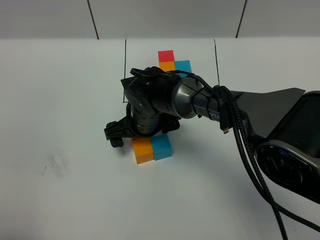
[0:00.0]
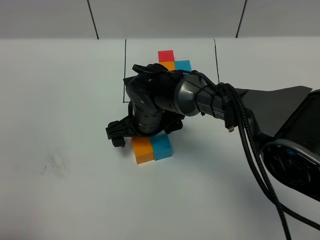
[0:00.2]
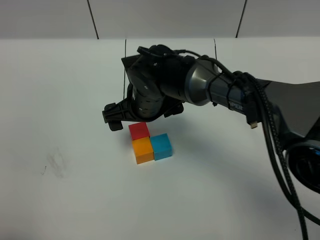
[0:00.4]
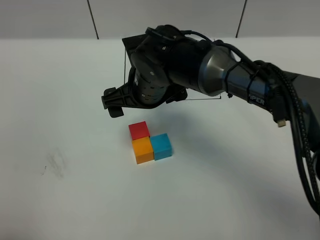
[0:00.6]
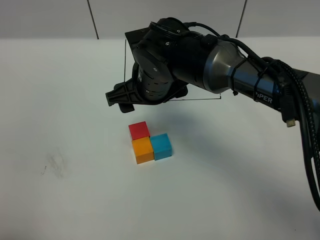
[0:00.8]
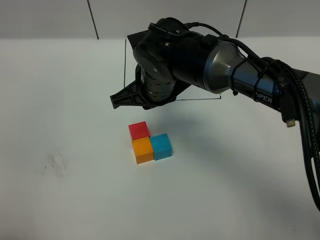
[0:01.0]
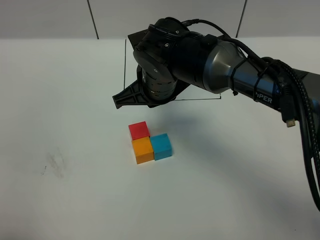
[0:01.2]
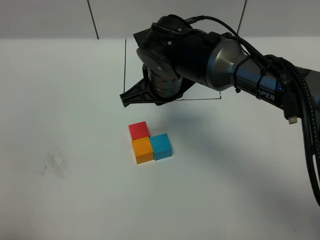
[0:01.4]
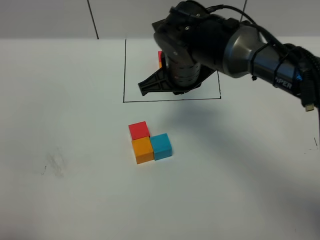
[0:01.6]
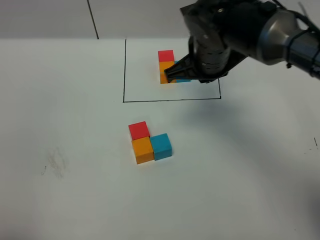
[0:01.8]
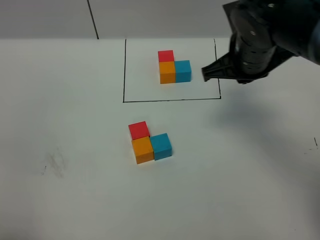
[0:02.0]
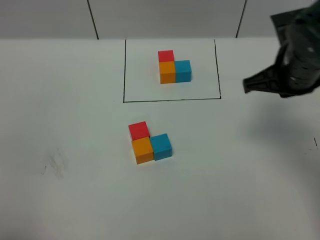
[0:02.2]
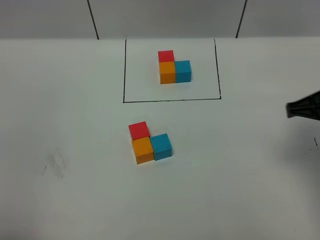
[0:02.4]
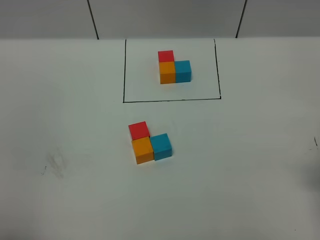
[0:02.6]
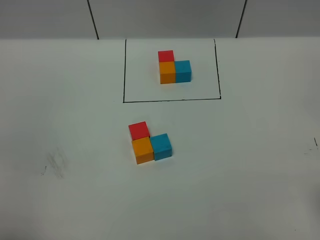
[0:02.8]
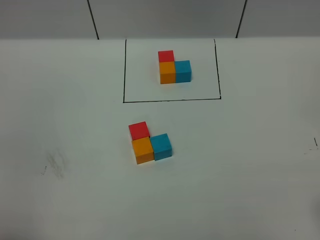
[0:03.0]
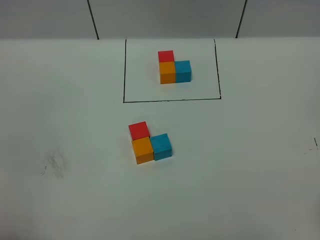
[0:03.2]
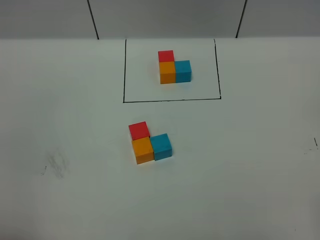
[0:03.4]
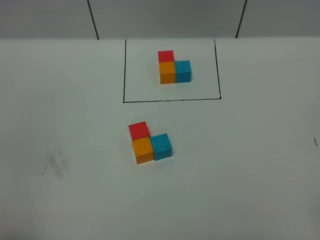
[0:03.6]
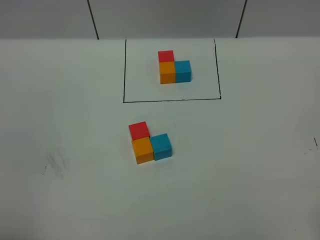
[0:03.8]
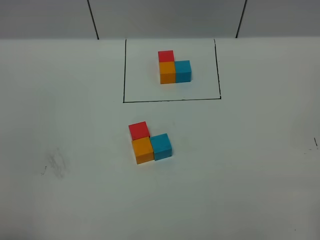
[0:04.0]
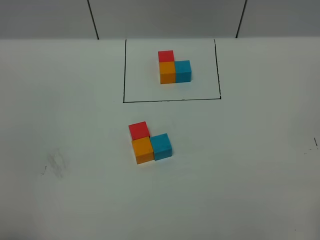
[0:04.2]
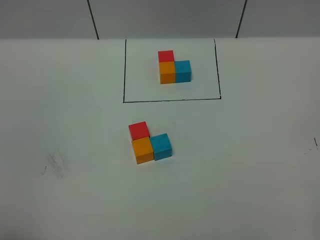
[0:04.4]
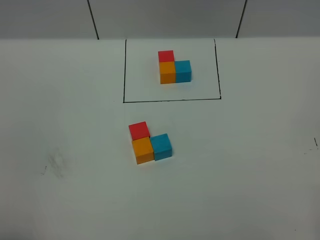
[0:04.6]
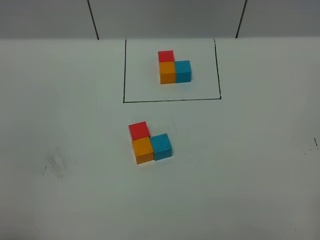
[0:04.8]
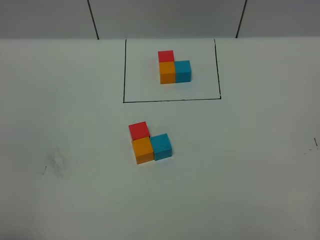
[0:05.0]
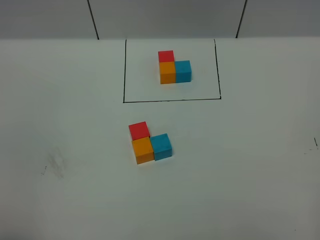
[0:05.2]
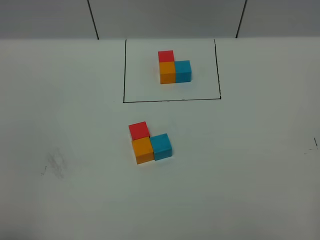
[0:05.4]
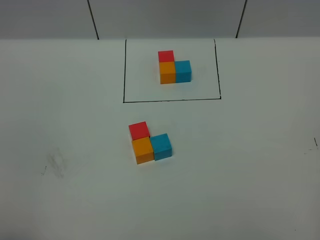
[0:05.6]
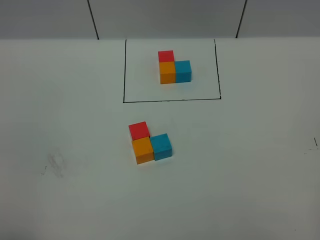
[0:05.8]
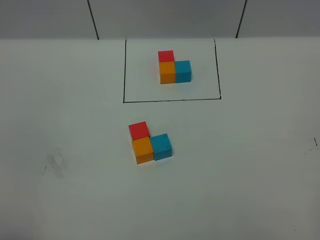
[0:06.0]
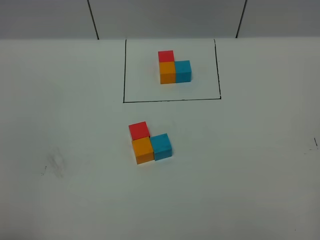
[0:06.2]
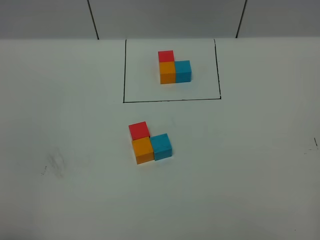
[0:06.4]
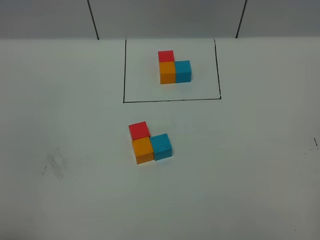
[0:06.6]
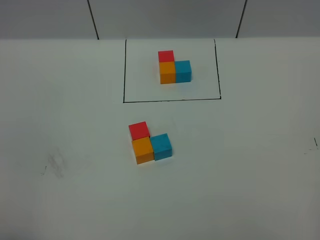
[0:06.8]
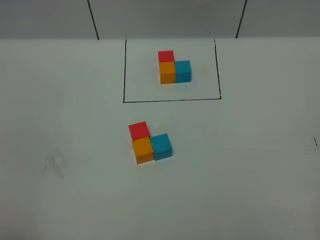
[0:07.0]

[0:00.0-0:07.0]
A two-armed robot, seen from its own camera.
Task of the whole recording: According to the building block template in front, assemble the scattered blocks together.
0:00.0 to 0:01.4: The right gripper travels upward by approximately 10 cm, and closes up.
0:01.4 to 0:02.8: The right gripper shifts some 35 cm to the right and backward.
0:05.6 to 0:07.0: Both grippers stay about where they are.

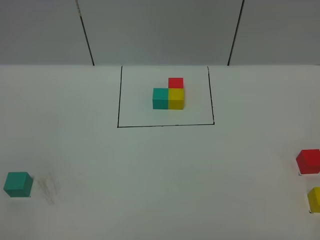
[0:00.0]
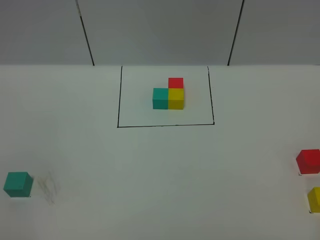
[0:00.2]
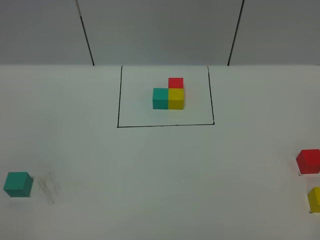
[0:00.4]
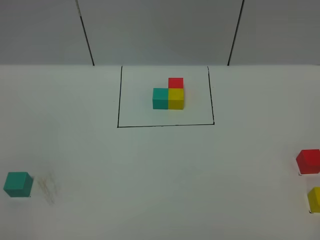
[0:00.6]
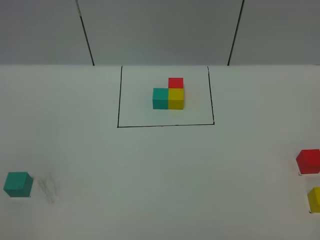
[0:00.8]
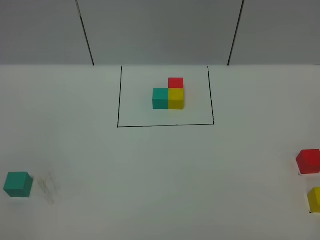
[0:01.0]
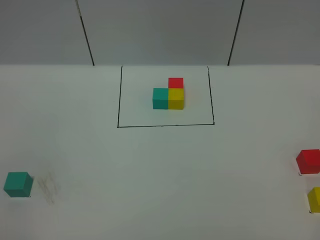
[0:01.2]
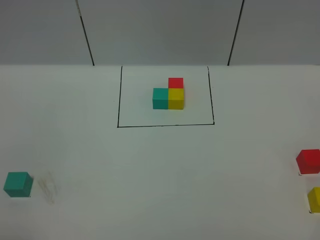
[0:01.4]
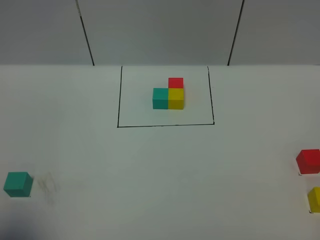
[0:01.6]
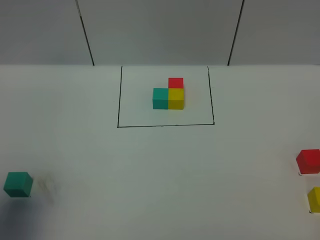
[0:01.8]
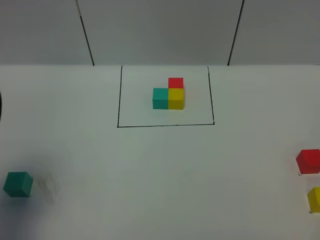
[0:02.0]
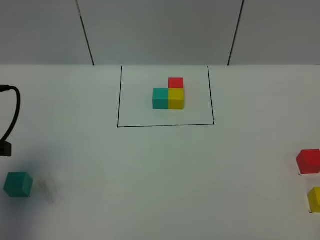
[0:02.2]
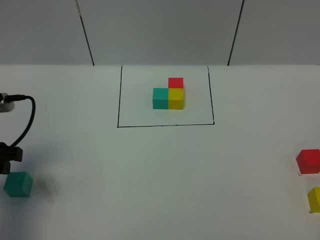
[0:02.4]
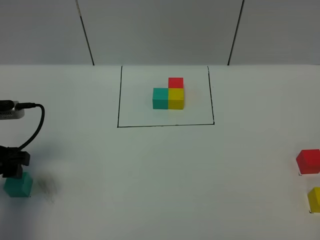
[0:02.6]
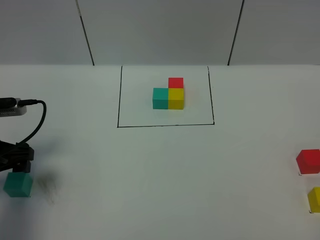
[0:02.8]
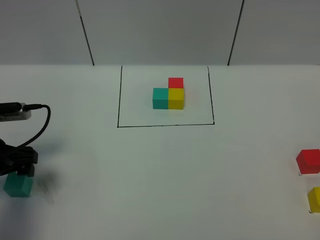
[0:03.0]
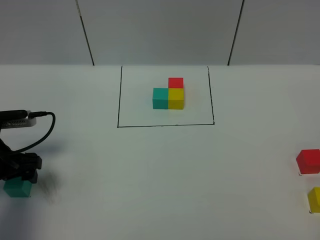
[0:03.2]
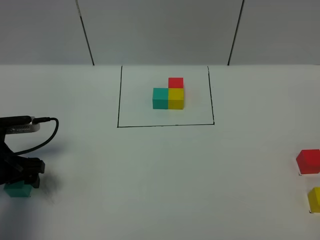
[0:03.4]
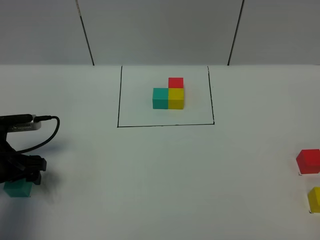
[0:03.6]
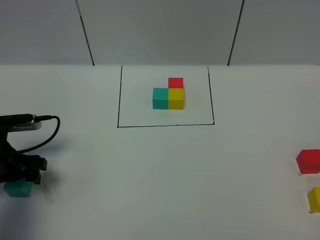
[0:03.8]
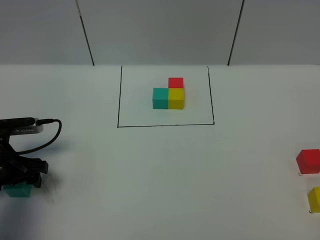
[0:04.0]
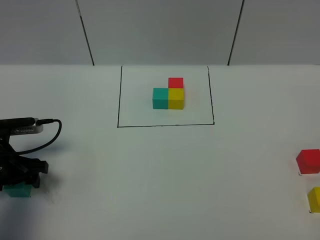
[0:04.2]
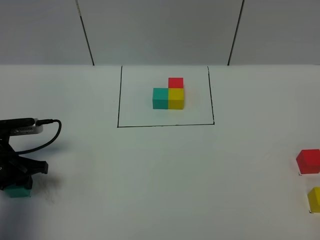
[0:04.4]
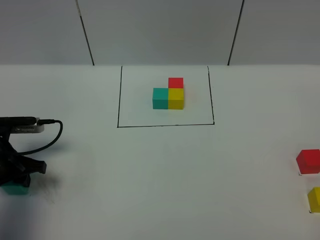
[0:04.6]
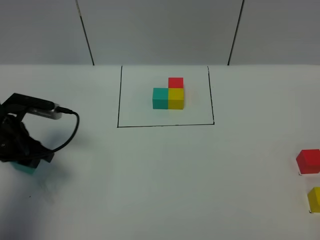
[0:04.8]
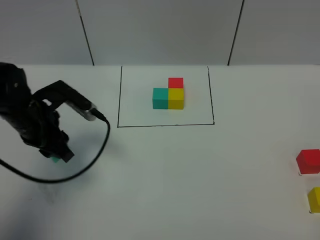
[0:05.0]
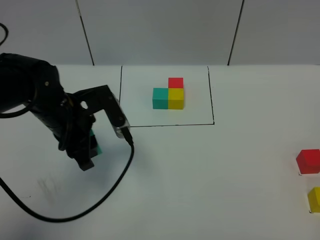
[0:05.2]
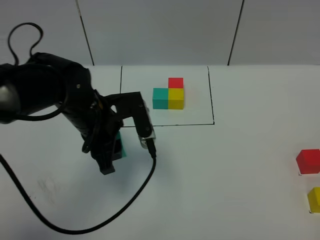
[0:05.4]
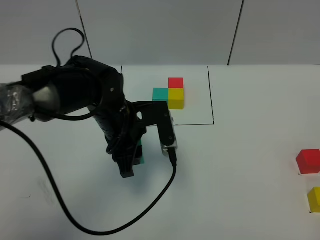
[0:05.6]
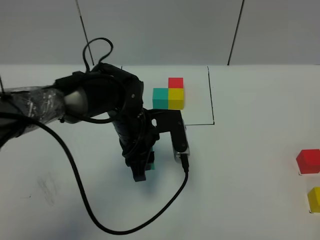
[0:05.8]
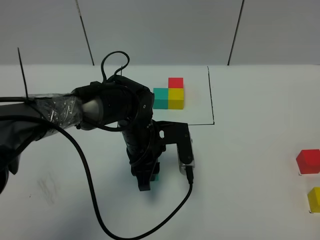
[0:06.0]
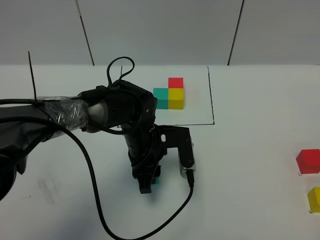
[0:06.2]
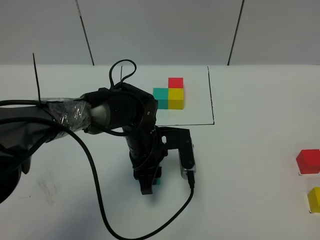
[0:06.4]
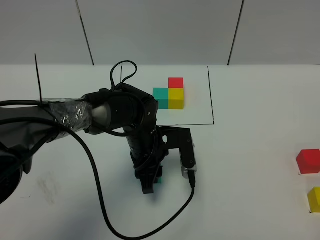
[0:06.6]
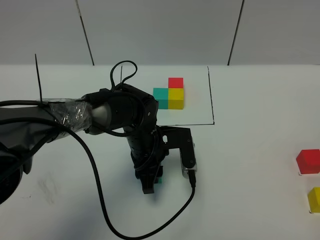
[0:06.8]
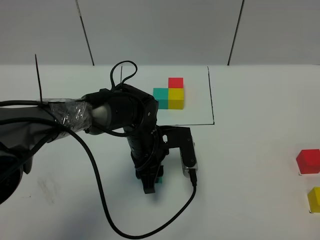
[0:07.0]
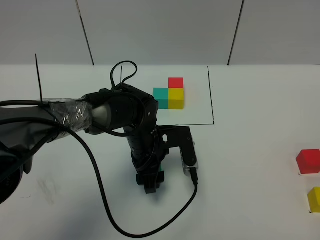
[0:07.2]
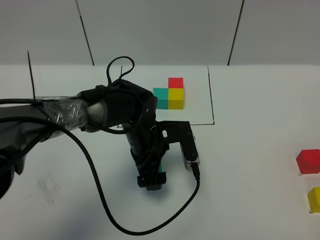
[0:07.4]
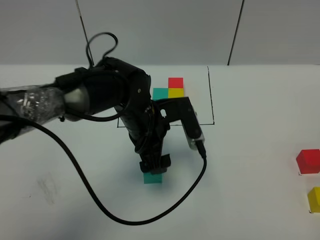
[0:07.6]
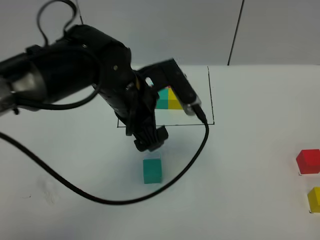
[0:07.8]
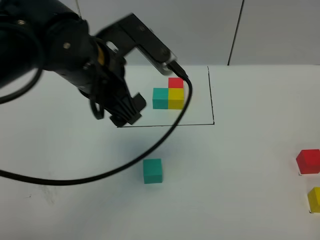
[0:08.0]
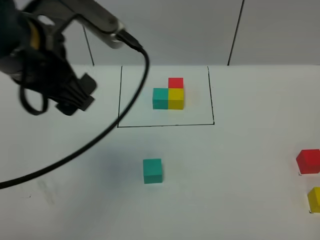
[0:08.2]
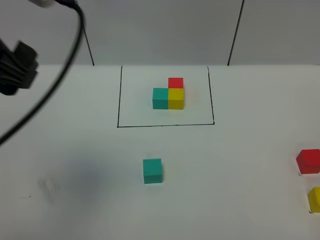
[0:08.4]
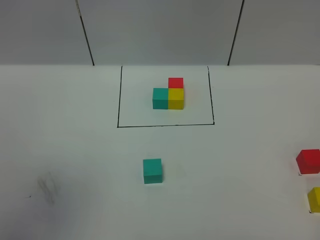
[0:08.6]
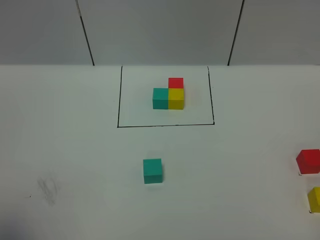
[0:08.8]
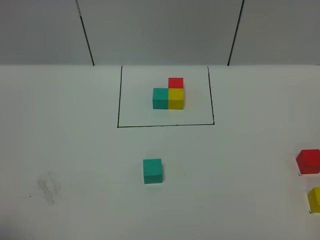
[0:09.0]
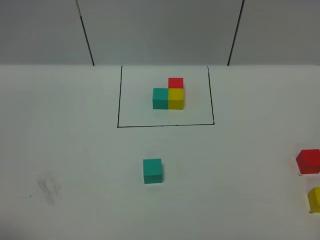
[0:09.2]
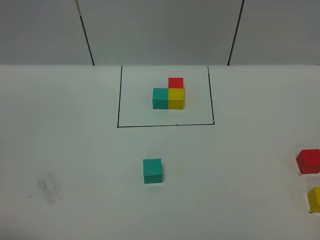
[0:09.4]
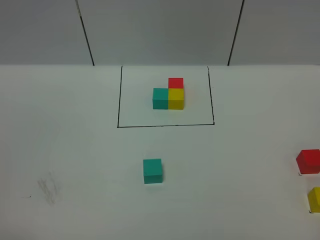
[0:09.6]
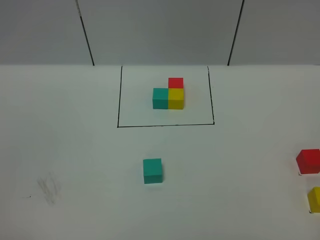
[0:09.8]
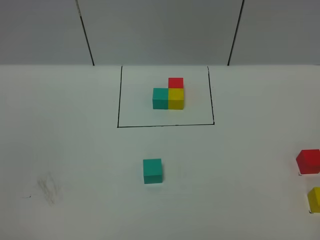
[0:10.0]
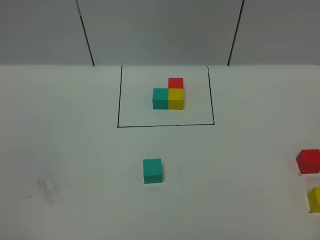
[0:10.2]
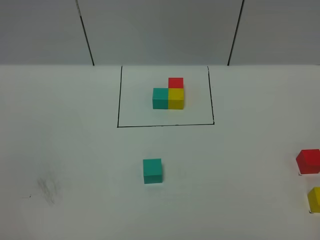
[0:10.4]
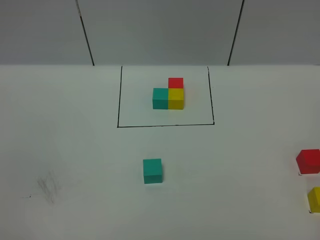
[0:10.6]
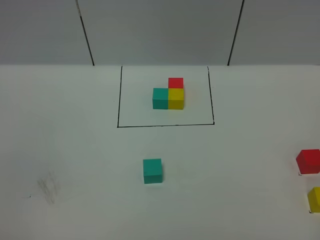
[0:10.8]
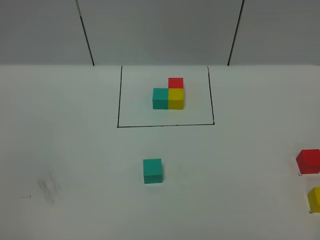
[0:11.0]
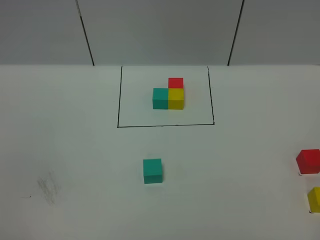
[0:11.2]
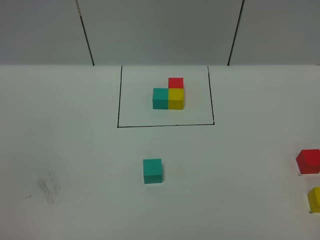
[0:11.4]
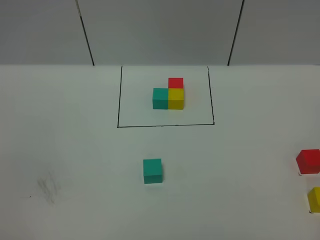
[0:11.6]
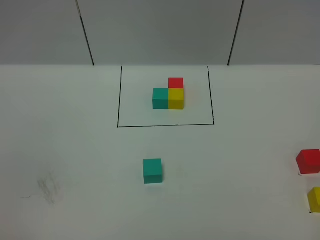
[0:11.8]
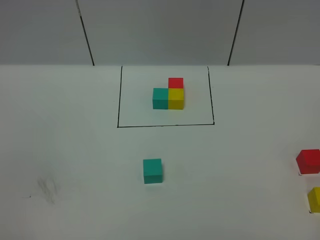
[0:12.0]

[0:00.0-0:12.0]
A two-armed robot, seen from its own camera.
Task of the whole recording: According to the building block template in front, assemble the scattered blocks together.
Step, 0:02.0 to 0:07.2: Put the green cube in the center of the table.
0:00.0 to 0:01.6: The left gripper moves forward and upward, about 10 cm.
0:01.6 to 0:03.0: The left gripper goes roughly 25 cm forward and downward, and opens its fingers.
0:03.0 to 0:04.4: The left gripper closes up.
0:04.4 to 0:06.0: The left gripper is displaced to the right by some 25 cm.
0:06.0 to 0:07.6: The left gripper shifts about 5 cm upward, and opens.
0:07.6 to 0:09.0: The left gripper travels backward, to the left and upward by some 50 cm.
0:10.4 to 0:12.0: The two grippers keep their place.

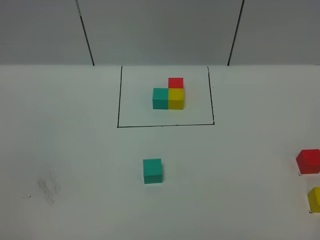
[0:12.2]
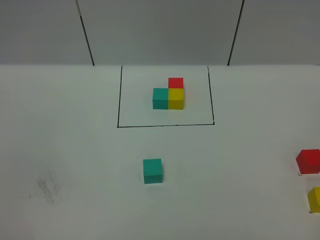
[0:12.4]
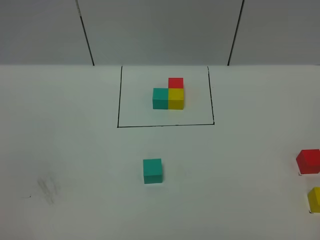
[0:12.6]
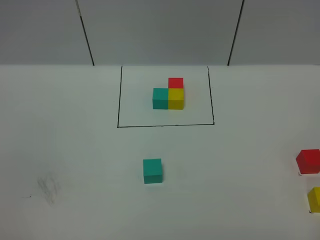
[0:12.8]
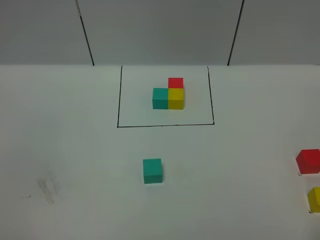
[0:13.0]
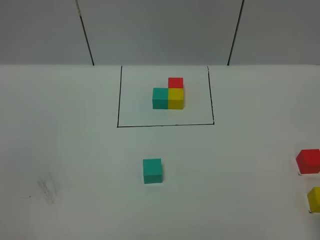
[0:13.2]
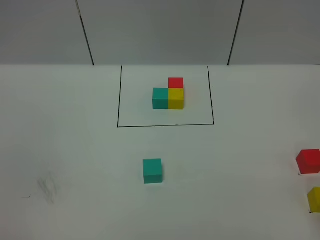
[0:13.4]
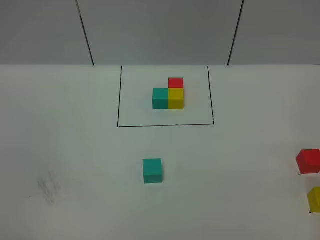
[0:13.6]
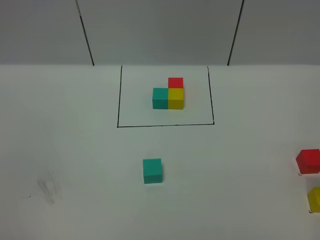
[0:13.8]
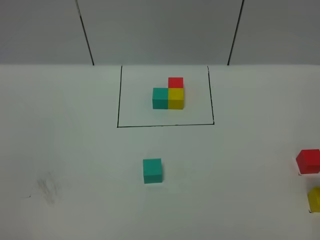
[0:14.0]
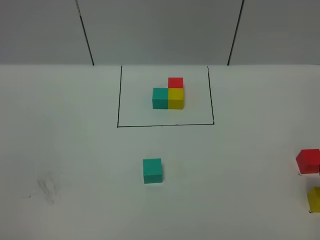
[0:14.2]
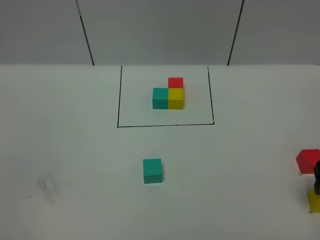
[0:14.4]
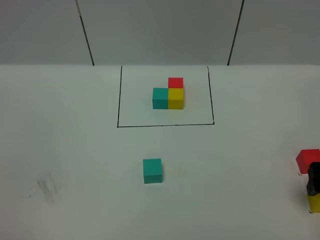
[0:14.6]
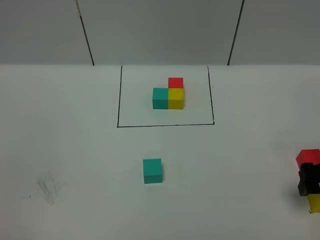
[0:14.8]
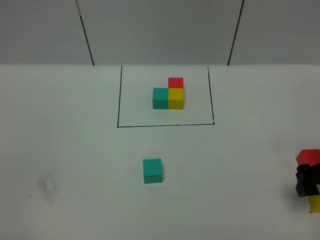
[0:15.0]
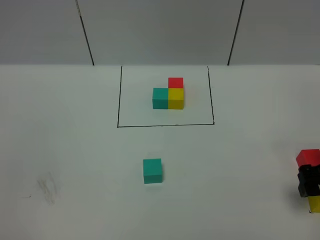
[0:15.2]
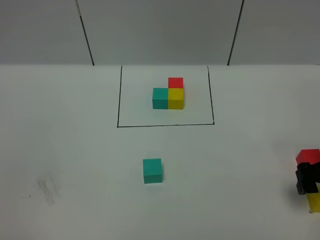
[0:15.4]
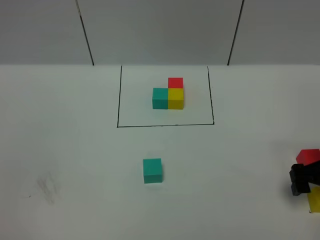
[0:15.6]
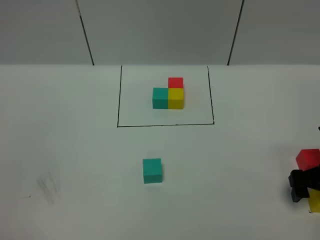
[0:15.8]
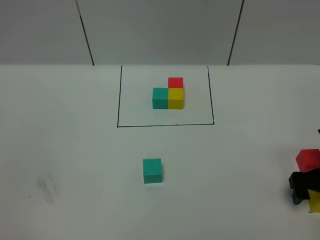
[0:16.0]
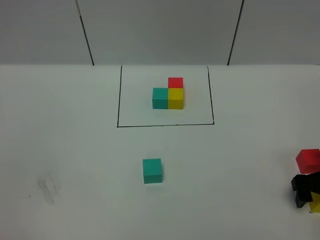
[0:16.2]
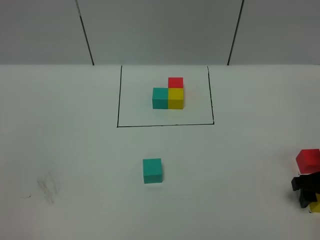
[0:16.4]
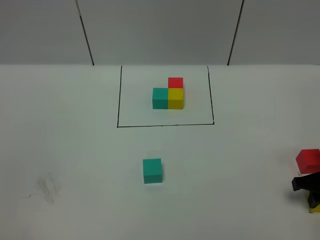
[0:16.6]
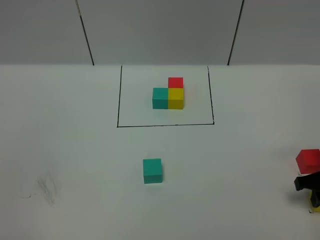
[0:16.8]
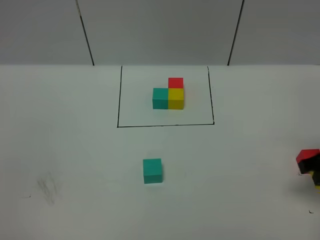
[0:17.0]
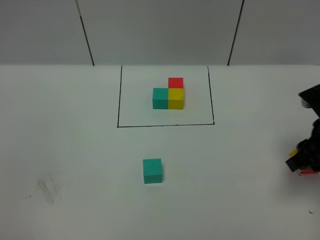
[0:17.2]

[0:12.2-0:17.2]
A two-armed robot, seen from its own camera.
Task of the whole recording: According to the building block template in front, assemble the scattered blocks together.
0:13.8 to 0:15.6: The right gripper shifts approximately 10 cm downward.
0:15.6 to 0:17.2: The right gripper is displaced upward by about 10 cm, and closes up.
